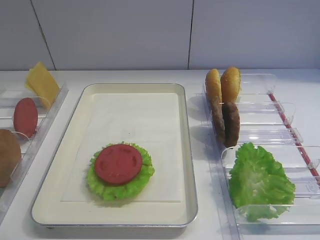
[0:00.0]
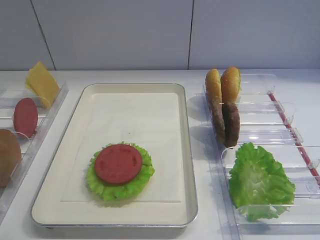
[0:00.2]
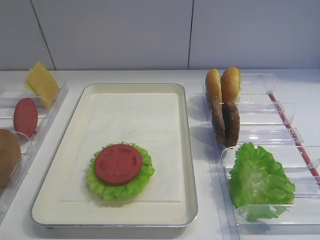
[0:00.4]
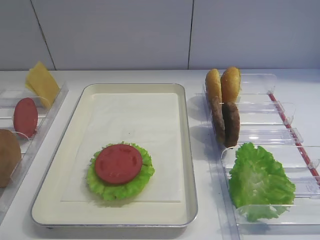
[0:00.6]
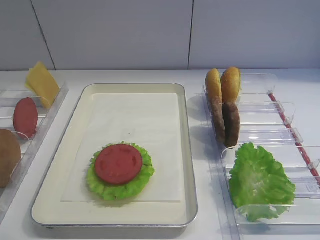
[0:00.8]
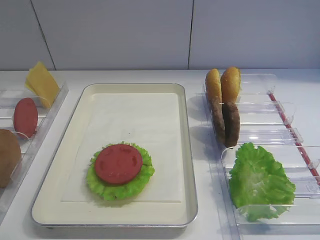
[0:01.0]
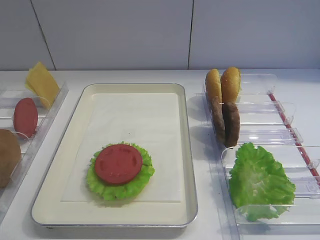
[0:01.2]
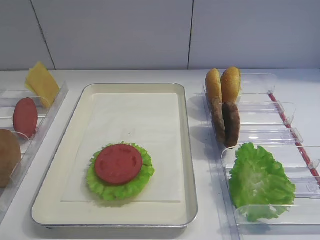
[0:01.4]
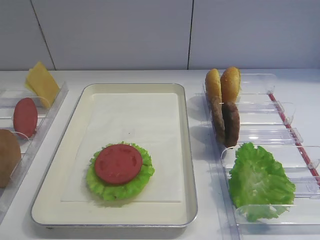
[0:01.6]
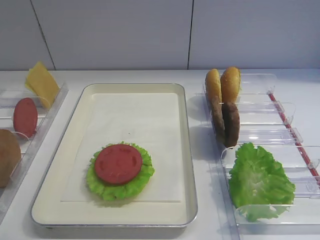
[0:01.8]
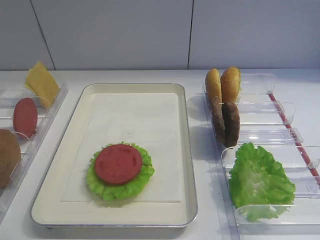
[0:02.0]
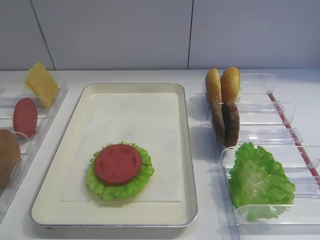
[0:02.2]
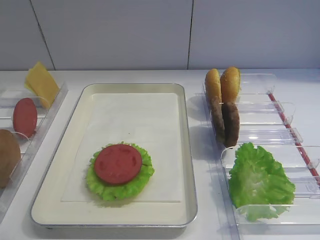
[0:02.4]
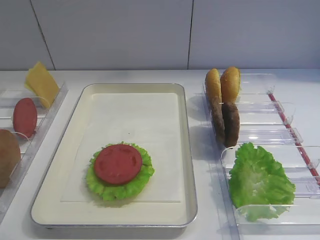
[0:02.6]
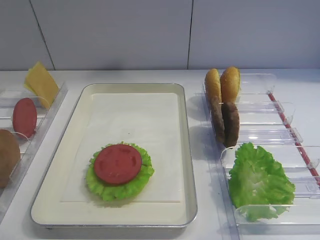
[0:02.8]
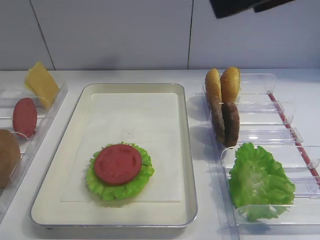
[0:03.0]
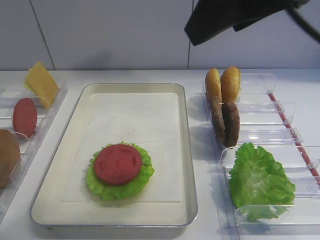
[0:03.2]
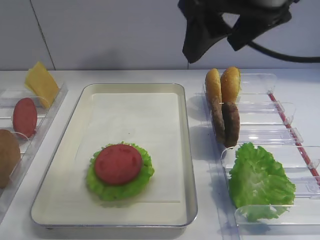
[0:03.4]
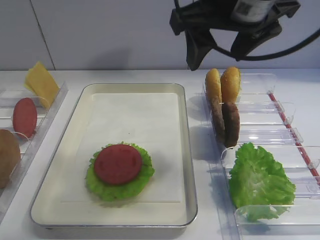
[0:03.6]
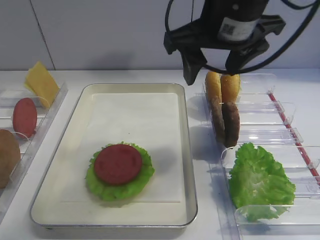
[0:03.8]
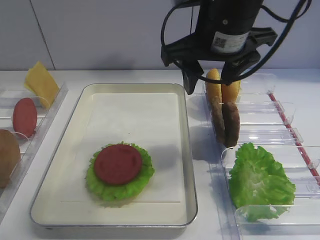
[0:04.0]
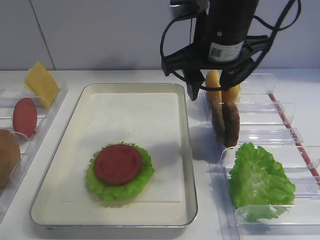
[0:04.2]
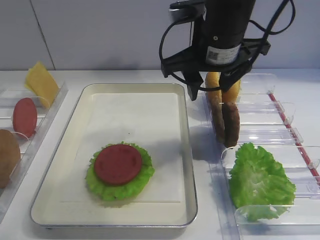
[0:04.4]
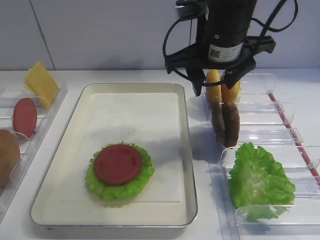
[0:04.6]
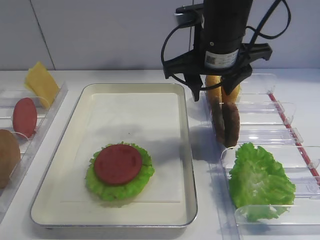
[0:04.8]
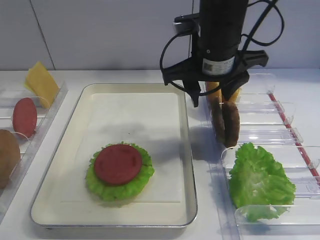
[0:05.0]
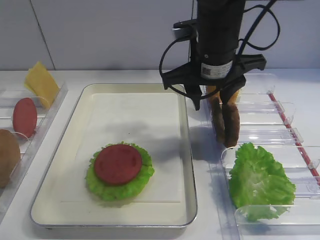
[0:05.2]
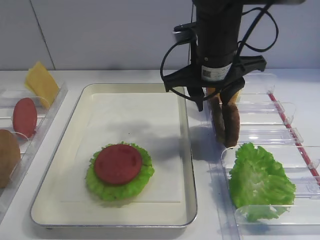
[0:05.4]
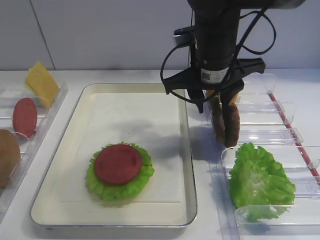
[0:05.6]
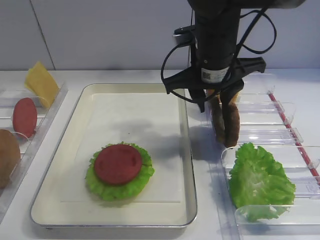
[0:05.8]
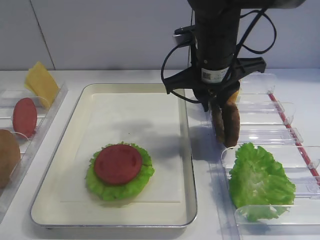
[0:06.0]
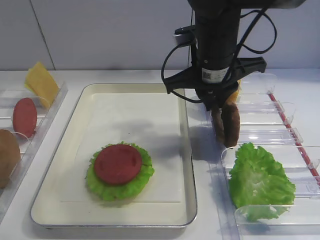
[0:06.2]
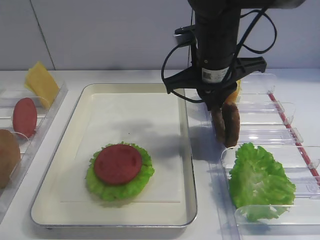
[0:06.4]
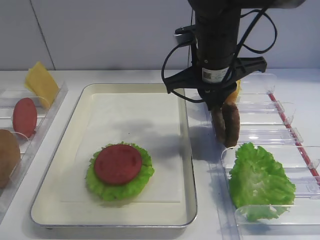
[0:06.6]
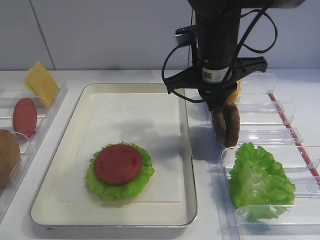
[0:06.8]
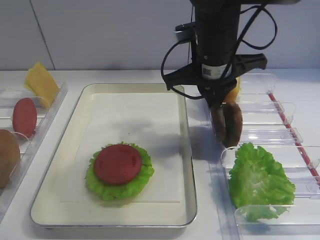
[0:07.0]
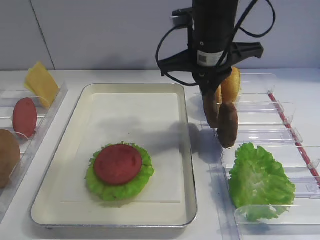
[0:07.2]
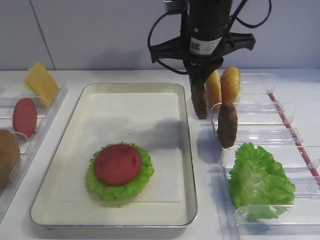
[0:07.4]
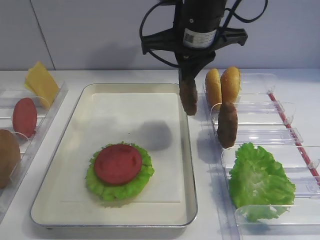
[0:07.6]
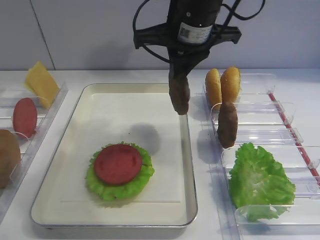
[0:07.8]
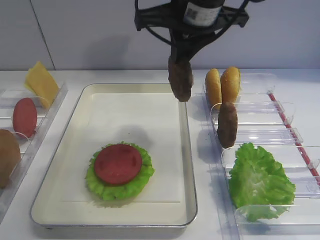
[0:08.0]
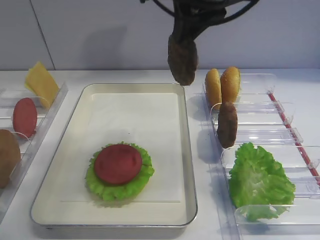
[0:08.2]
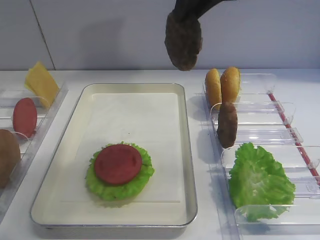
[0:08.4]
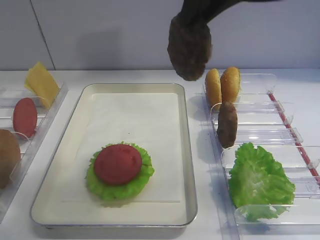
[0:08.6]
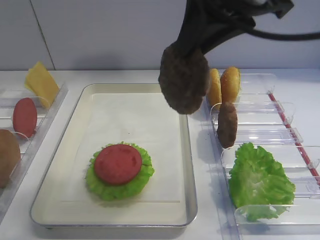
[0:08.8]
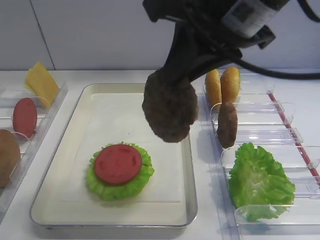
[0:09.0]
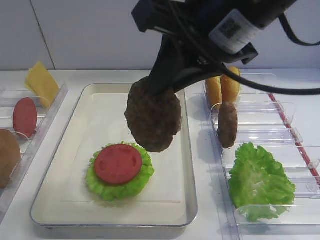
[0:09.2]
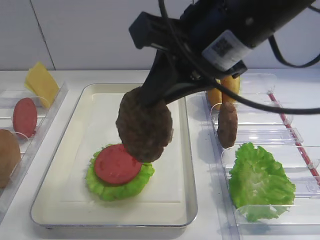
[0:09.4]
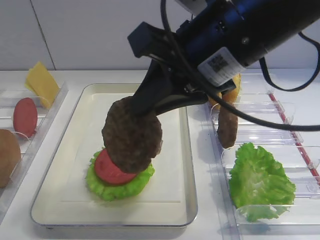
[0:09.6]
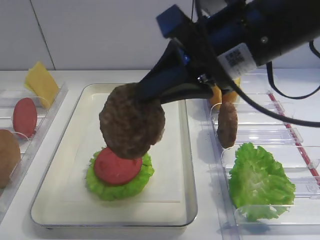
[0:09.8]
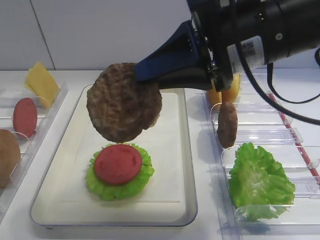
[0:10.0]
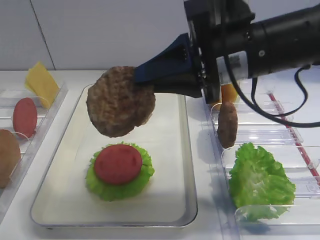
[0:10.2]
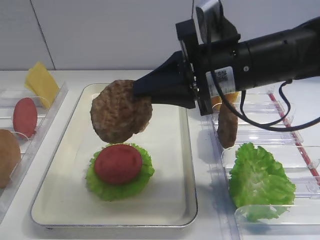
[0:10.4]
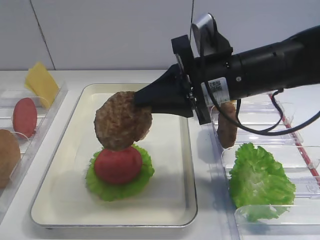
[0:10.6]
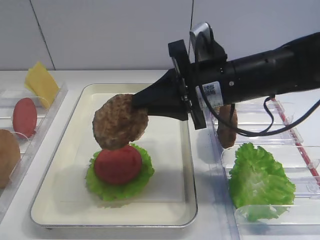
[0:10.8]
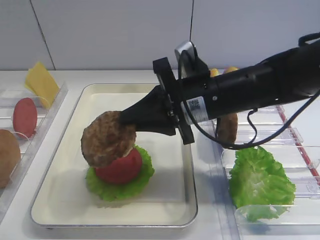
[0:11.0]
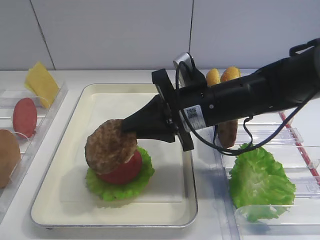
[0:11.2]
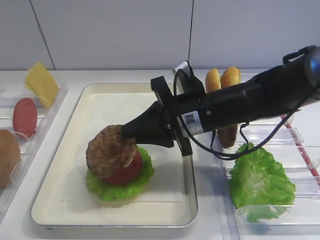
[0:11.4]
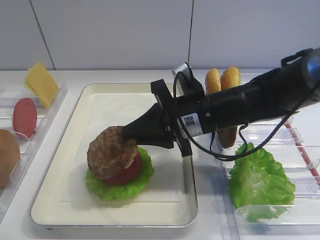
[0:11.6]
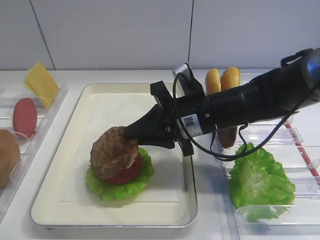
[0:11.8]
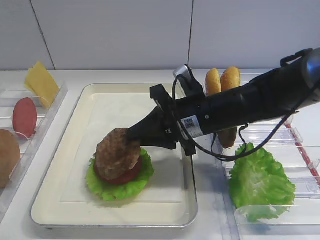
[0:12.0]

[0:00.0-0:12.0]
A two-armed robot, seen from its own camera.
Step, 0:00.0 to 0:08.2: Pick up the cutlet with the right gripper.
0:01.6 to 0:03.0: The right gripper shifts approximately 25 cm forward, upward and to the left.
0:03.0 to 0:04.4: The right gripper is displaced forward, downward and to the left by roughly 20 cm.
0:04.4 to 0:06.0: The right gripper closes up.
0:06.0 to 0:07.6: The right gripper is displaced upward by roughly 5 cm.
0:07.6 to 0:09.0: The right gripper moves backward and upward, about 15 cm.
0:09.0 to 0:10.4: The right gripper moves downward, about 10 cm.
0:10.4 to 0:12.0: The right gripper moves downward, approximately 10 cm.

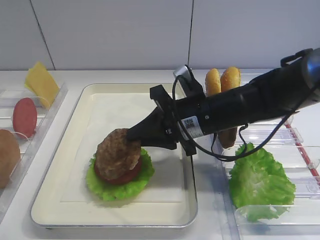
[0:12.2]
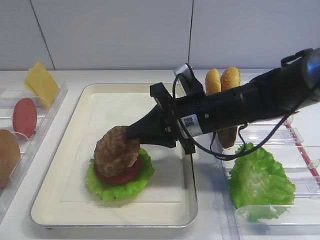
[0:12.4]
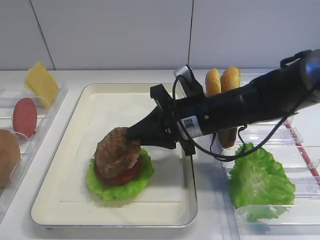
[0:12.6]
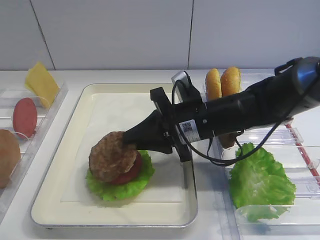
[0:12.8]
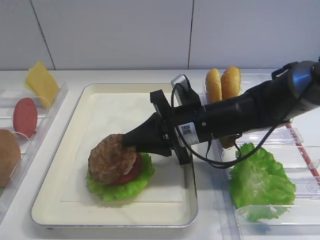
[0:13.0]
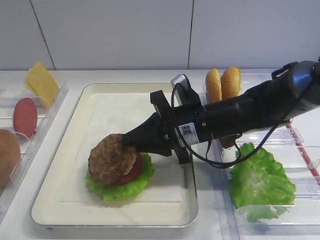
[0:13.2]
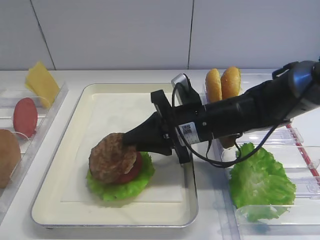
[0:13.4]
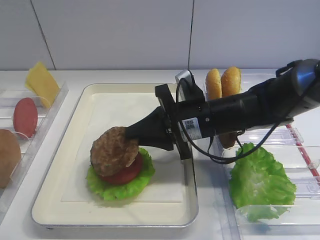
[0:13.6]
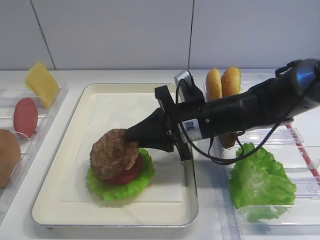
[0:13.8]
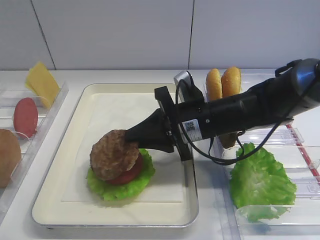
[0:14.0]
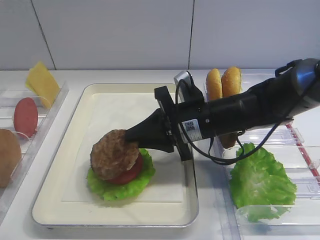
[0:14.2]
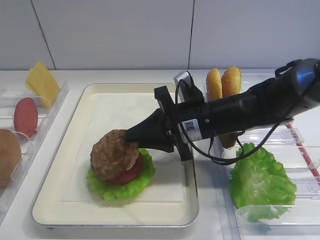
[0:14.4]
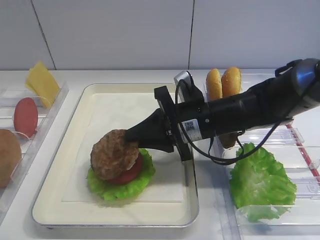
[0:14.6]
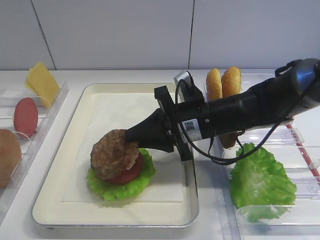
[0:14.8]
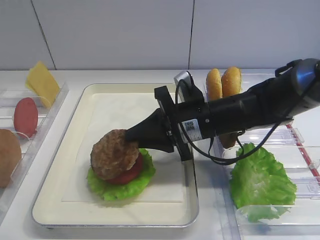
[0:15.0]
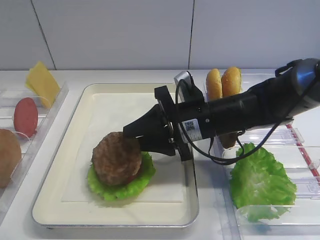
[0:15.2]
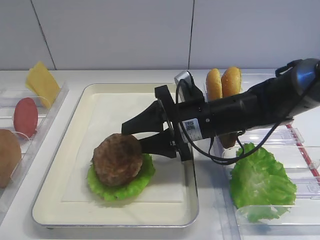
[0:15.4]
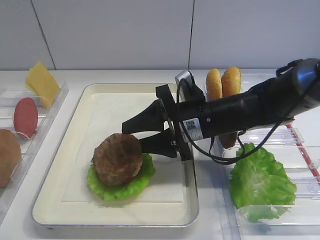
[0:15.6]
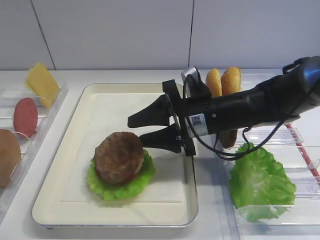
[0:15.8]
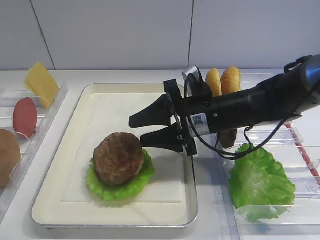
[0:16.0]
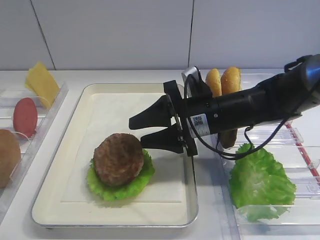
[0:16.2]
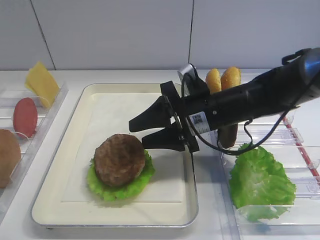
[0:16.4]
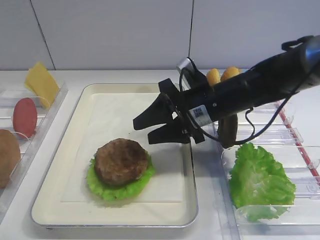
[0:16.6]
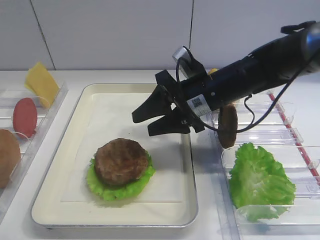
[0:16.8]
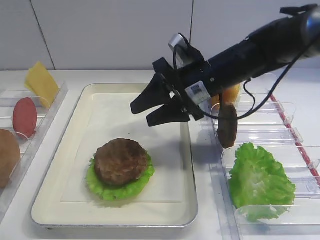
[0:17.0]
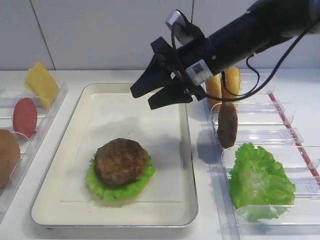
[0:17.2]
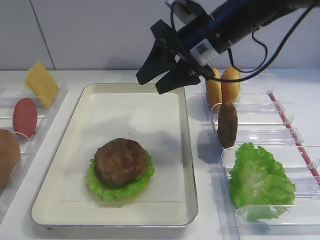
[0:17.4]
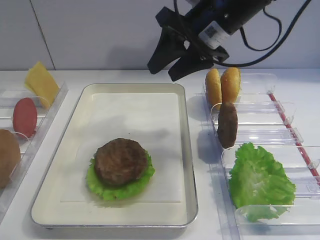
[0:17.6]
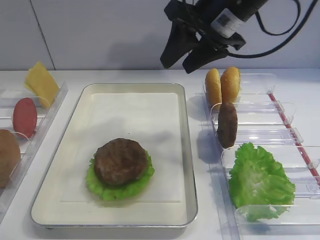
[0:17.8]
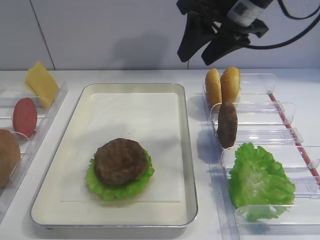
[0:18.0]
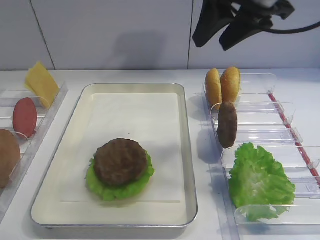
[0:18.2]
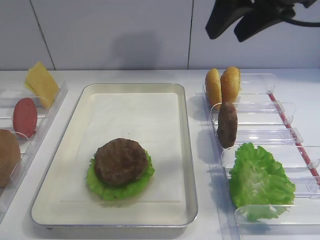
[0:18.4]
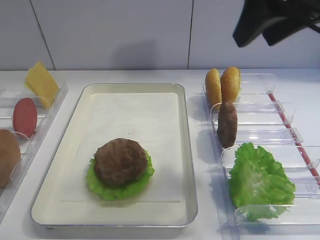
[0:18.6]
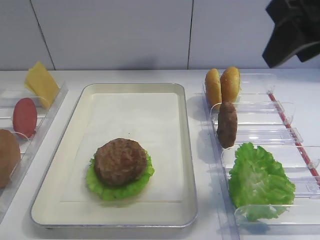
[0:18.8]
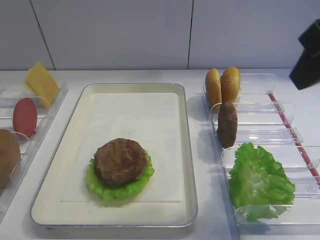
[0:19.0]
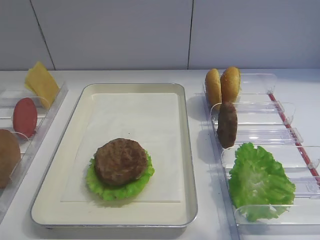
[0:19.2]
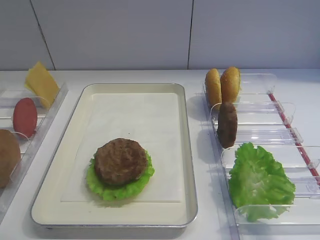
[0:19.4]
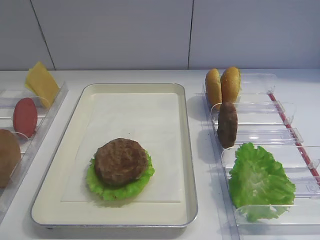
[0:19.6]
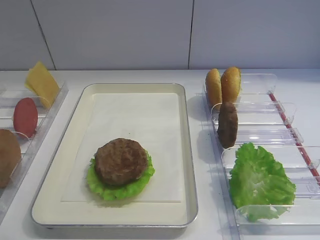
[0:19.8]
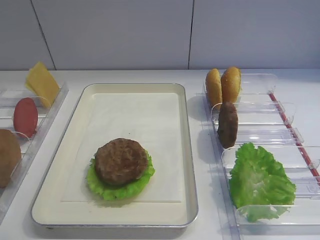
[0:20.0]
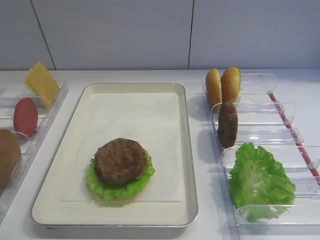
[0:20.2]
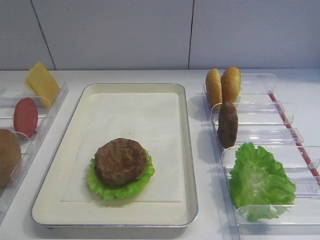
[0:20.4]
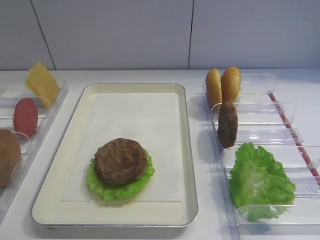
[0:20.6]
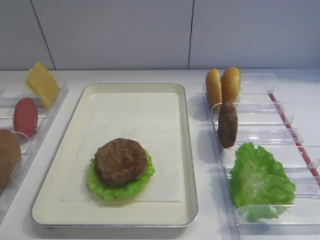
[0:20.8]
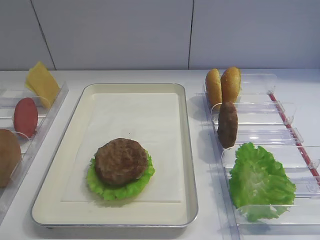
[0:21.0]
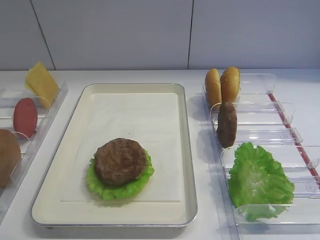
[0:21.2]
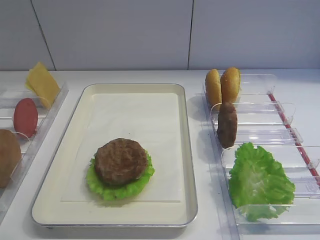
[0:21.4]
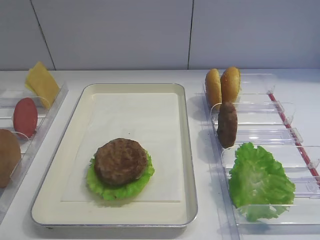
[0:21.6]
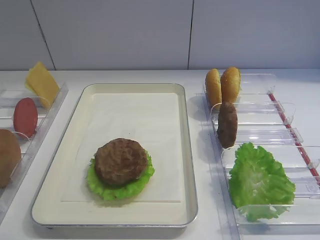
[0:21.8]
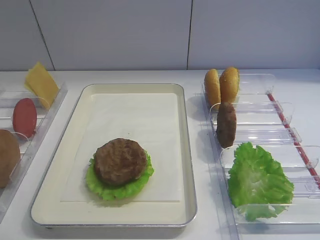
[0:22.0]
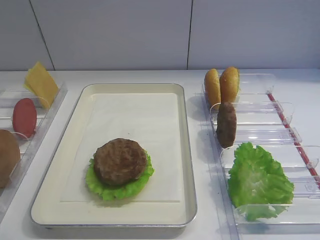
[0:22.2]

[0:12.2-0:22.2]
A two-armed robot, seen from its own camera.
Step, 0:12.2 to 0:16.6: Place the cutlet on the tomato slice with the right gripper.
0:12.2 to 0:13.6: The grippers move only a little.
0:13.6 to 0:15.0: Both grippers stay about where they are.
0:15.0 to 0:16.4: The right gripper opens up.
0:16.4 to 0:18.0: The right gripper is displaced upward by roughly 20 cm.
0:18.0 to 0:19.4: The right gripper is displaced backward and to the right by about 25 cm.
0:20.8 to 0:22.2: The right gripper shifts approximately 5 cm backward.
